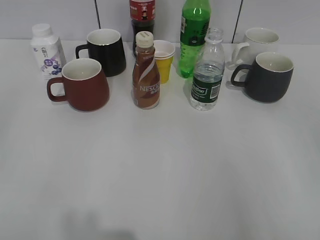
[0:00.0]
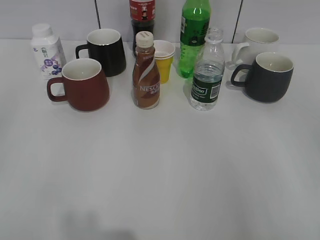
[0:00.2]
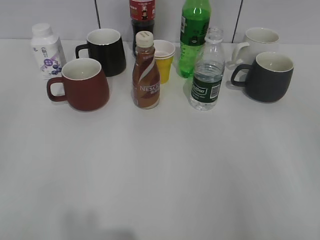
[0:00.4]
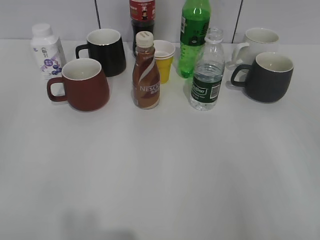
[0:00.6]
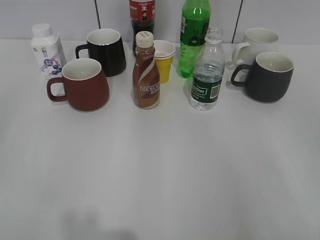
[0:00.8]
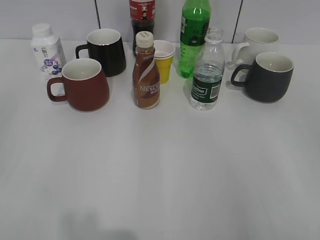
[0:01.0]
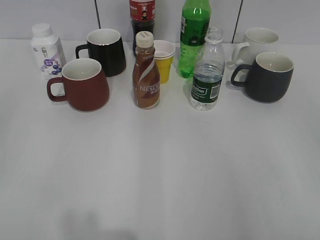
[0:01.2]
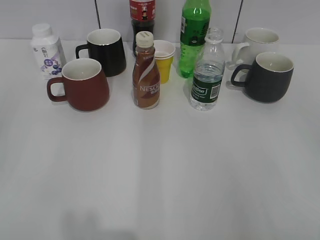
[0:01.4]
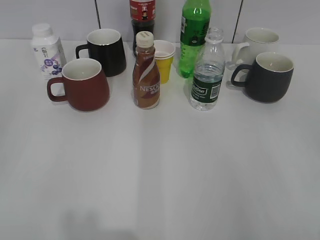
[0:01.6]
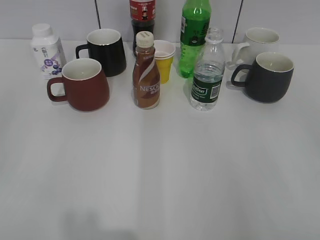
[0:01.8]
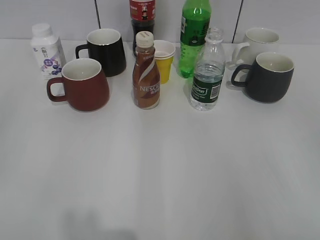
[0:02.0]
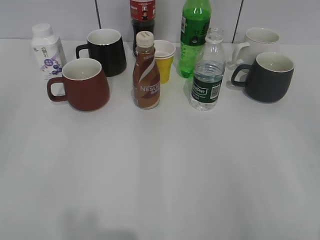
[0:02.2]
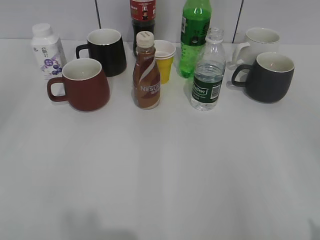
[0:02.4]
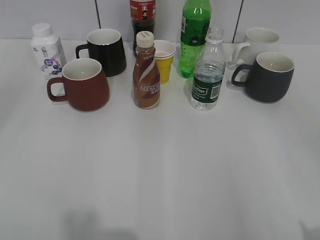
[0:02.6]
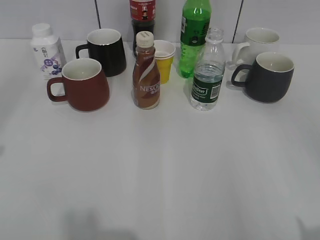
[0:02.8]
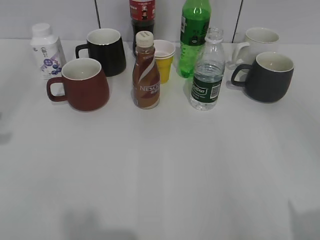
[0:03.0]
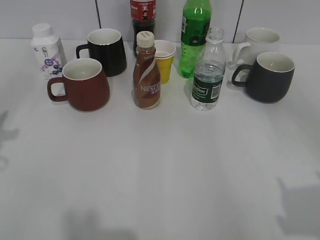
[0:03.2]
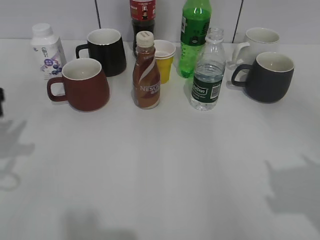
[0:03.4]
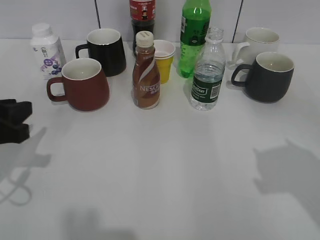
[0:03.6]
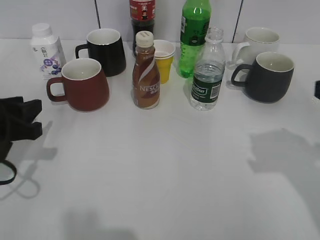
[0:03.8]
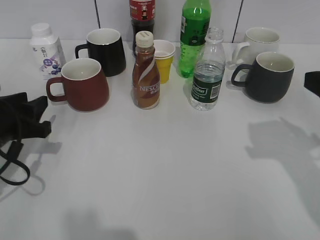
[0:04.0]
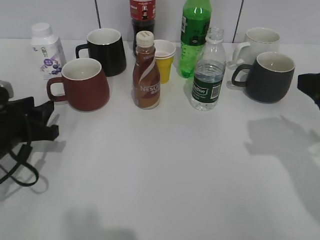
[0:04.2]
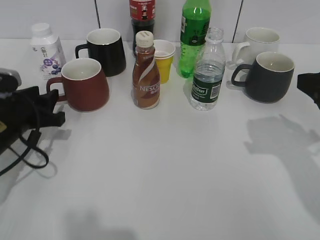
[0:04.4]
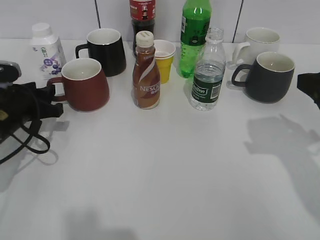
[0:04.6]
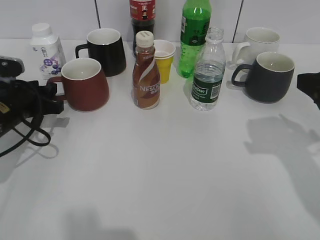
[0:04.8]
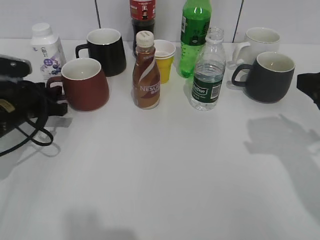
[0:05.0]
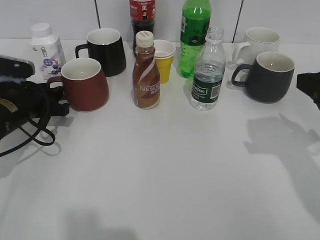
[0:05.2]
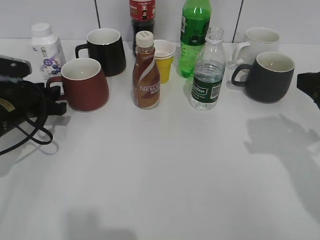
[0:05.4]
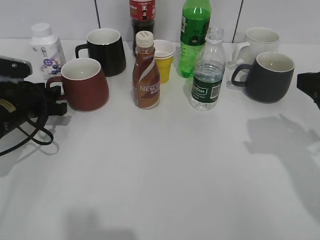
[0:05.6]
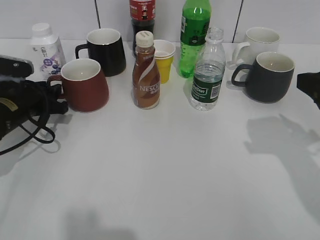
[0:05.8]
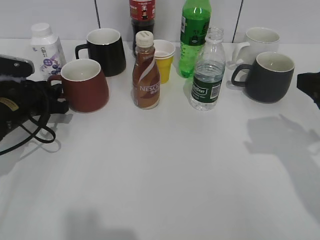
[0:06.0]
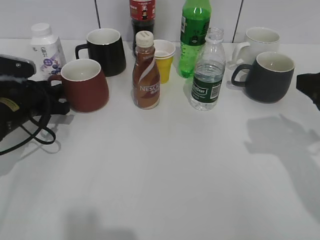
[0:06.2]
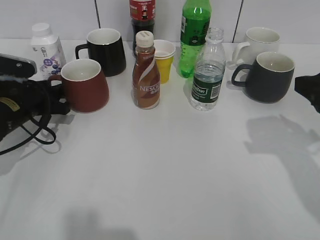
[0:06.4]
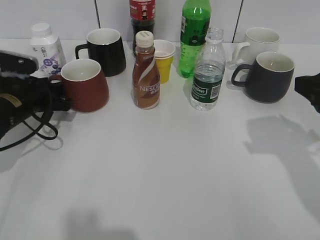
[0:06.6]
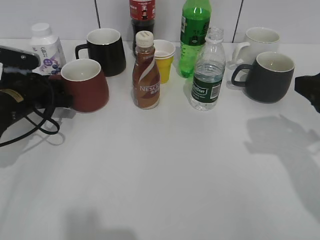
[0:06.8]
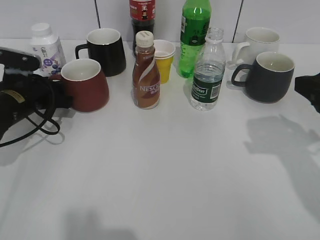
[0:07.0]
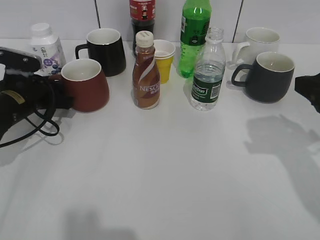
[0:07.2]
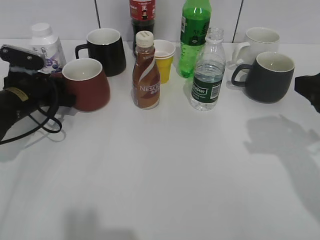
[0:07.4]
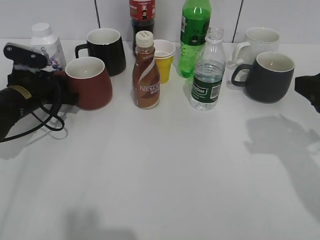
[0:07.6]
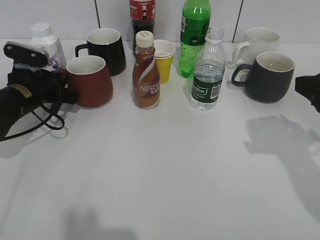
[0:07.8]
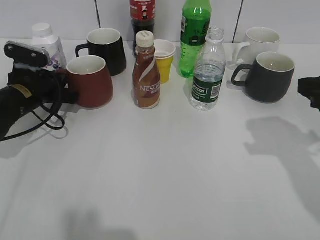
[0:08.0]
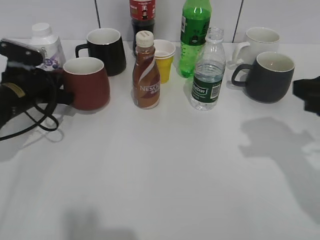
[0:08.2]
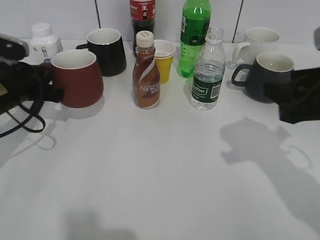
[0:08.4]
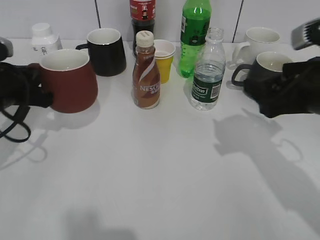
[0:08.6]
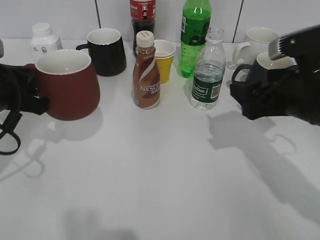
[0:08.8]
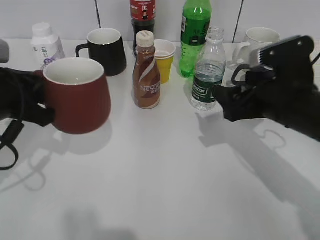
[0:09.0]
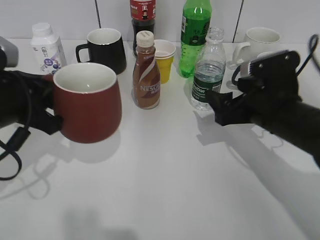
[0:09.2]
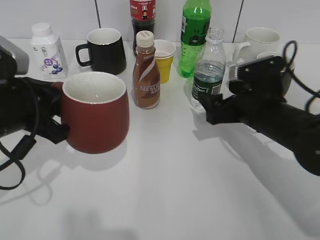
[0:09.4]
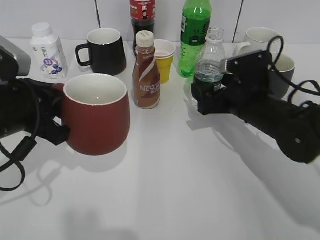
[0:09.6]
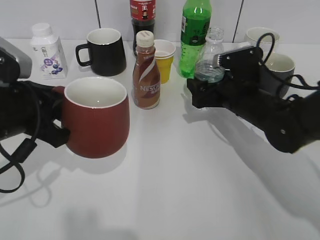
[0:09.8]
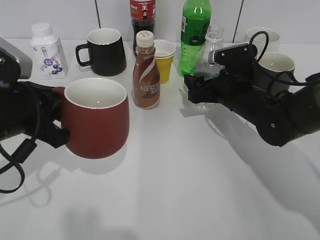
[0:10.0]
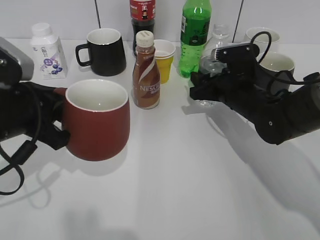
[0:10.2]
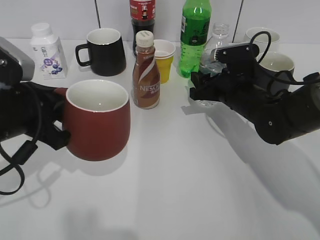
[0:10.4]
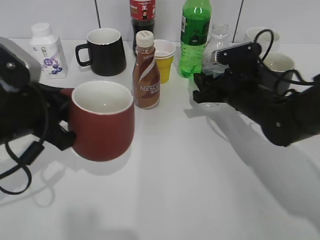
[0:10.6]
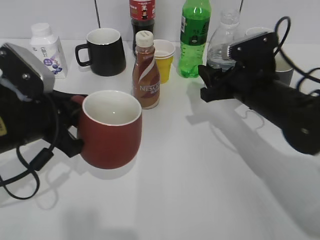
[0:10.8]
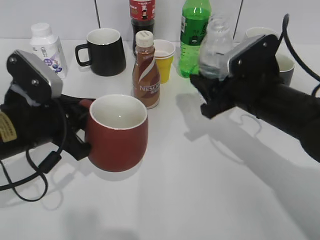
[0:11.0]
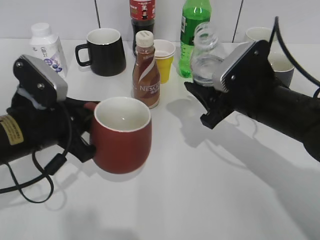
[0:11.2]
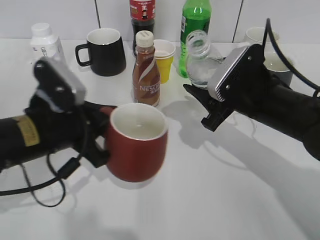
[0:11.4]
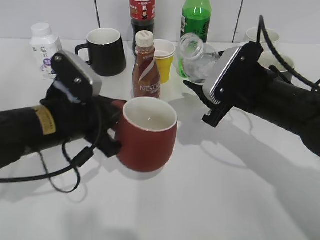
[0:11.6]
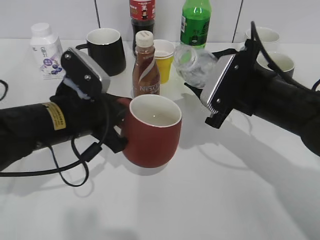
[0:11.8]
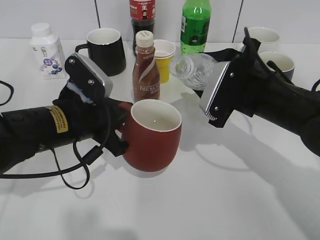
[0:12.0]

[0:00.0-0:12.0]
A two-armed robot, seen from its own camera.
Step, 0:01.8 to 0:08.0: Grasp the red cup with left gripper.
Step, 0:08.2 to 0:10.2: Grasp the bottle with water with right gripper.
0:03.0 to 0:04.4: The right gripper shifts about 20 cm forward. The left gripper travels downward, forward and to the right by about 20 cm, and opens.
0:04.4 to 0:06.0: The left gripper goes about 5 cm forward.
0:06.0 to 0:07.6: The grippers make only small movements.
0:07.6 to 0:09.0: The right gripper moves to the left and downward, about 10 cm, and opens its fingers. Meanwhile the left gripper is displaced backward and upward by some 15 cm, and closes its fingers.
0:09.0 to 0:10.4: The right gripper goes approximately 10 cm forward and downward, and closes its fingers.
0:10.4 to 0:12.0: The left gripper goes roughly 5 cm to the right. Meanwhile the right gripper is displaced backward and upward by some 10 cm.

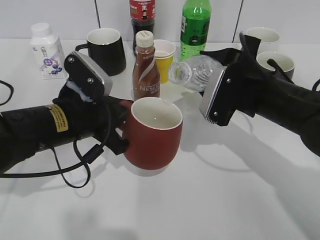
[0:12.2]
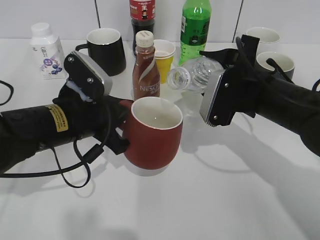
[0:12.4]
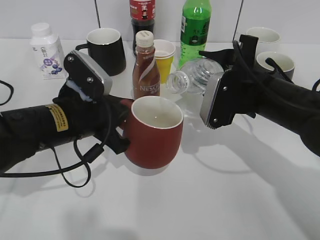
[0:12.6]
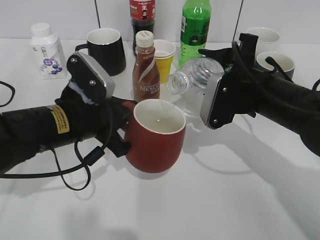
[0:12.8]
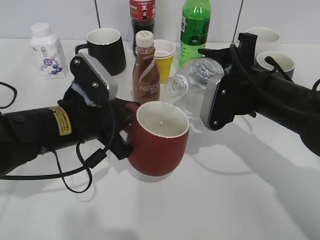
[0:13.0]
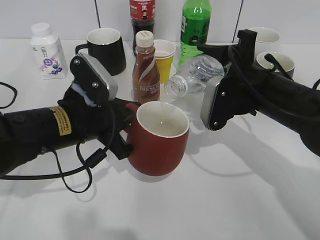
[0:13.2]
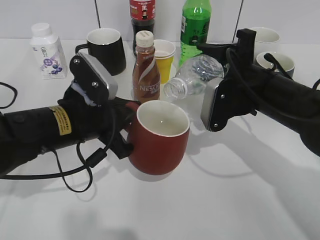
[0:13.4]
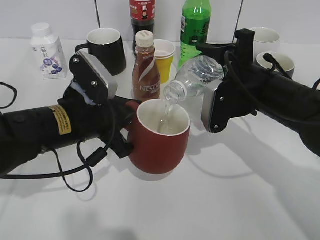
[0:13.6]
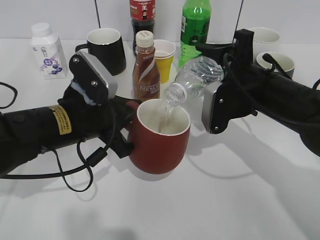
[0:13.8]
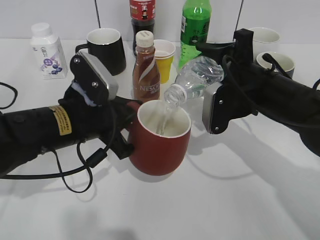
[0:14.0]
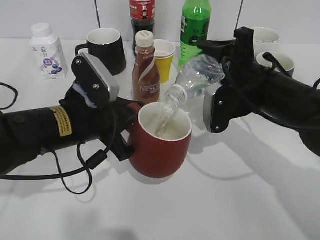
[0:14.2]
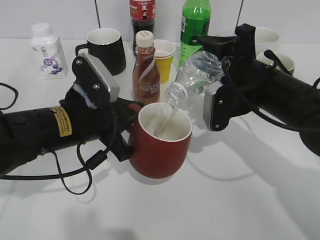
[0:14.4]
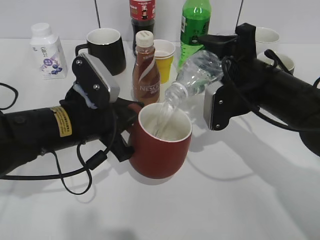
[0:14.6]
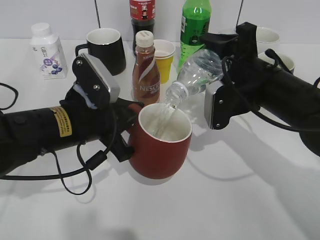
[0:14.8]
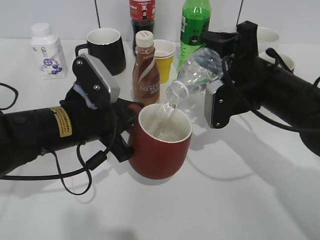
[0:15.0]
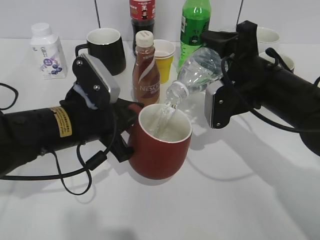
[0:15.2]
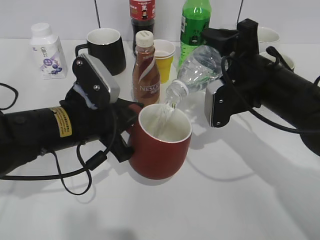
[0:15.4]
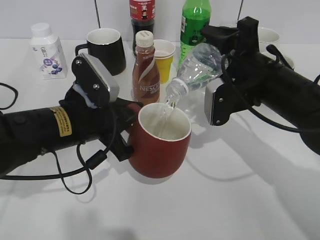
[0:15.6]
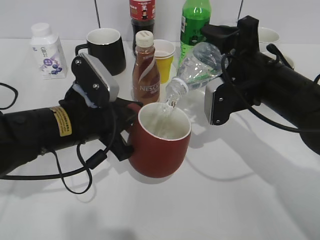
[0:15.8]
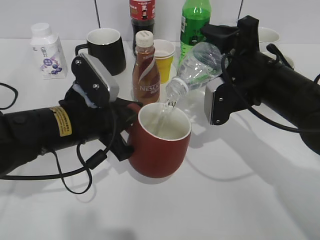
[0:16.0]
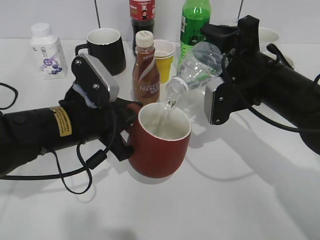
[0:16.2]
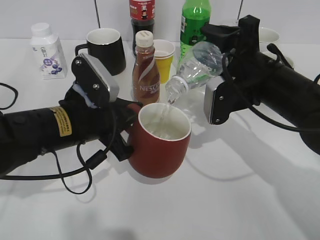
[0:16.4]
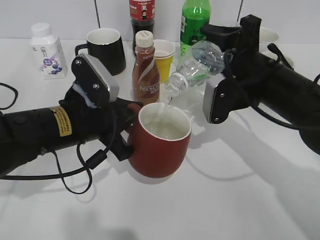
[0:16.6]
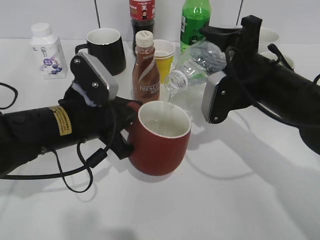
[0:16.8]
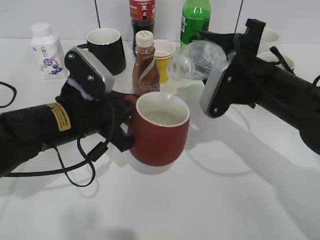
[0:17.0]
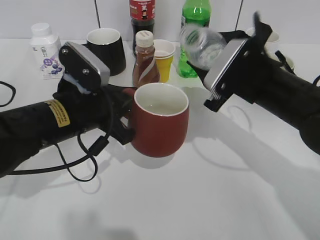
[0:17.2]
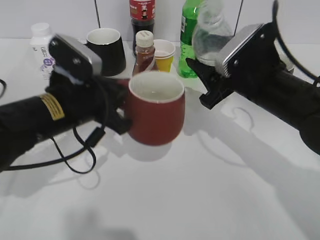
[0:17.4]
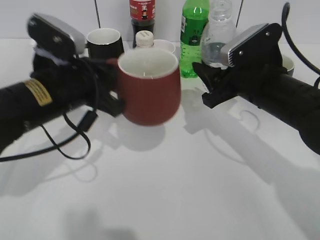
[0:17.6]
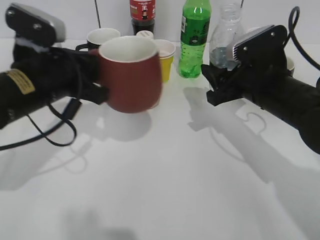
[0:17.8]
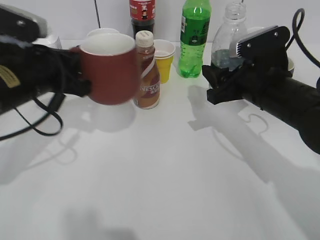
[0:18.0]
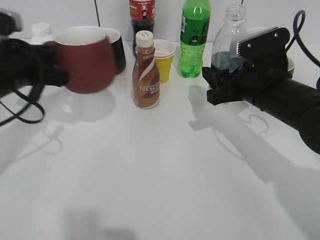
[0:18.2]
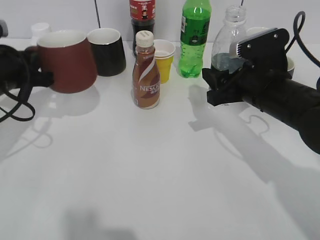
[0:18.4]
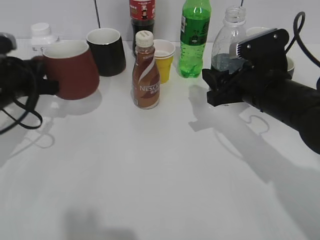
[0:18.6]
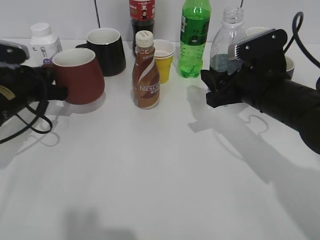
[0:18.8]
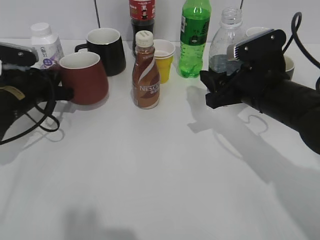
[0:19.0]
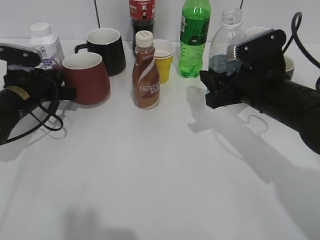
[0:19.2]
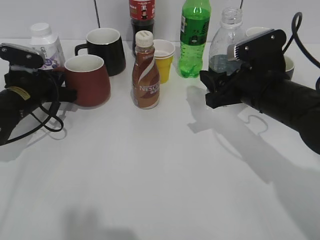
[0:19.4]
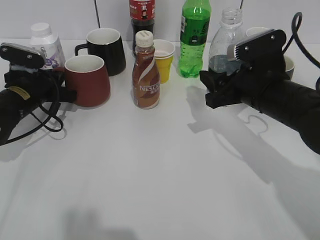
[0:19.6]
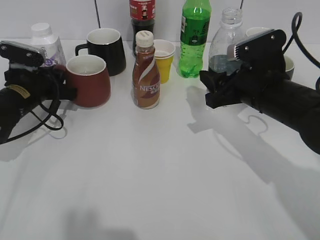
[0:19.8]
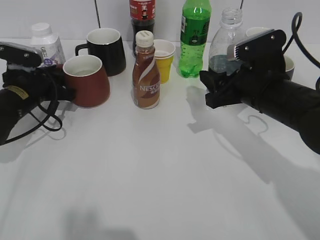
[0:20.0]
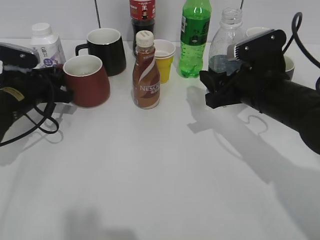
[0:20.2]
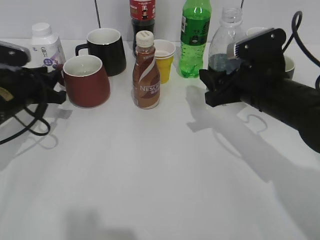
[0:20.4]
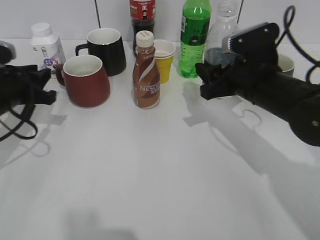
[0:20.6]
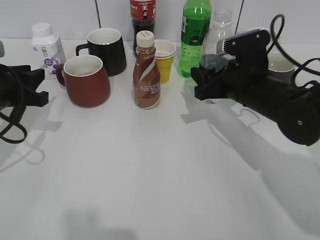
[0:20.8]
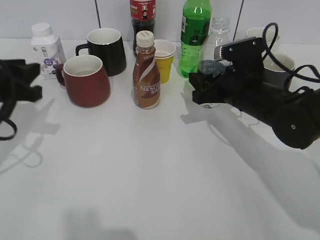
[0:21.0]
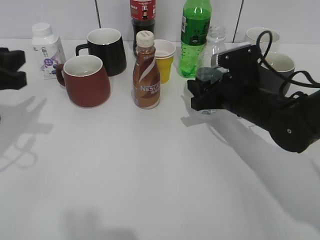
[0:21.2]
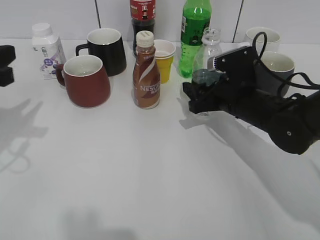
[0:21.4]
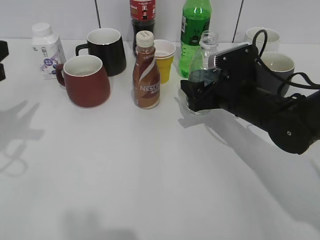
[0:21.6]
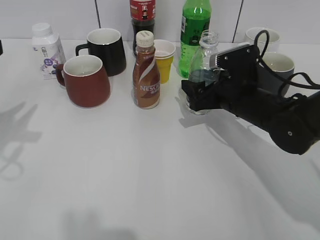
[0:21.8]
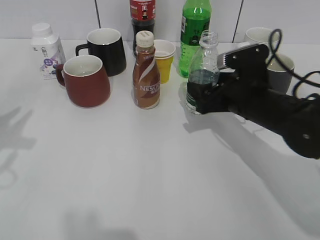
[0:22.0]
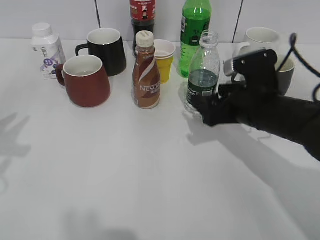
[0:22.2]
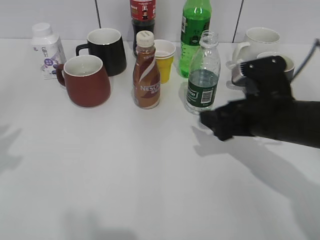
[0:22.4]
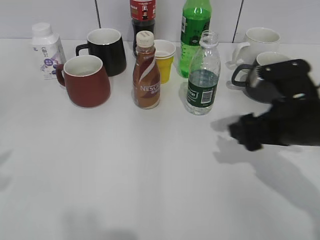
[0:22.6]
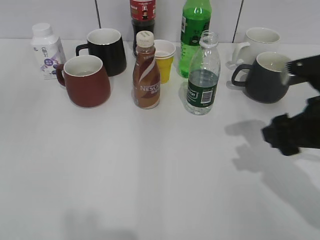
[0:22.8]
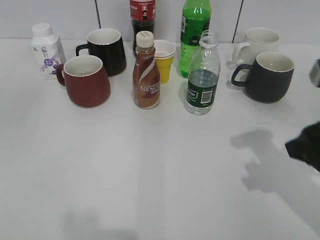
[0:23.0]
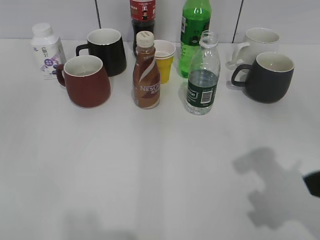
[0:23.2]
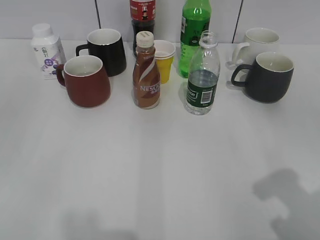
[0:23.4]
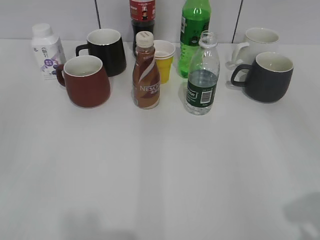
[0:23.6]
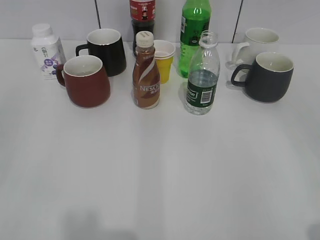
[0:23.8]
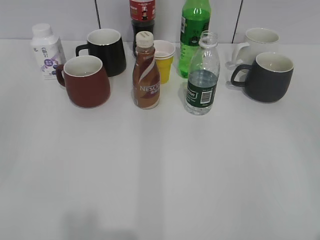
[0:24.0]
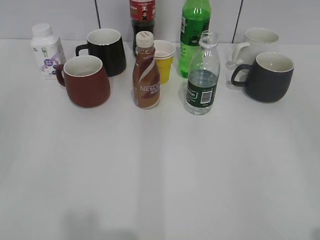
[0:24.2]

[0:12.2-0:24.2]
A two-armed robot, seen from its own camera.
Step, 0:12.2 to 0:16.8: Pour the water from bottle to cup with right gripper.
Step, 0:17.2 to 0:20.0: Place the red cup on the table with left gripper.
Step, 0:20.2 to 0:22.0: Place the water bottle on the table with right gripper.
0:13.8 to 0:15.2: There are only small adjustments of the grippers.
0:15.2 to 0:16.6: Neither gripper changes place.
0:16.6 to 0:18.2: The left gripper is displaced to the left by approximately 10 cm.
0:18.2 to 0:19.8: The left gripper shifts some 10 cm downward and forward.
0:19.8 to 0:21.2: The left gripper moves backward and upward, approximately 15 cm, and opens. The right gripper moves about 5 cm.
0:21.2 to 0:22.6: The left gripper moves backward and upward, about 15 cm; the right gripper goes about 10 cm backward, and opens its fingers.
0:22.6 to 0:24.2: The right gripper goes about 30 cm backward, to the right and upward.
